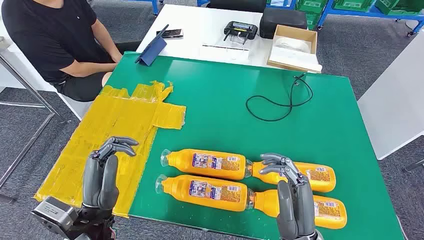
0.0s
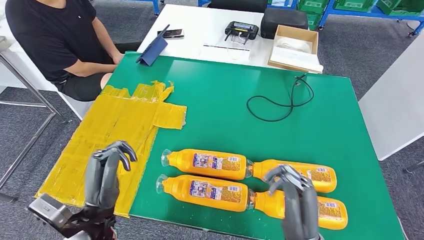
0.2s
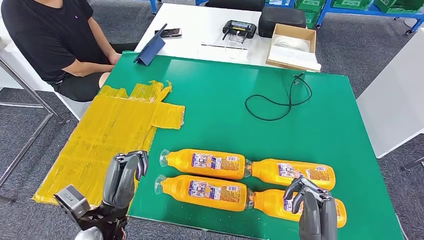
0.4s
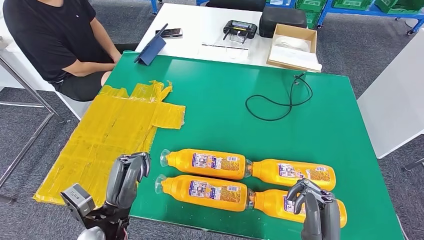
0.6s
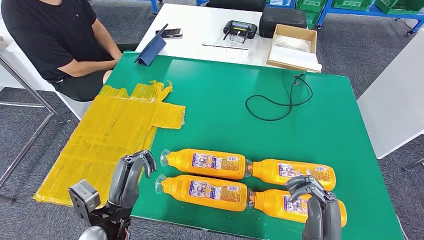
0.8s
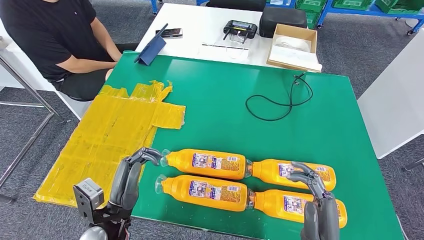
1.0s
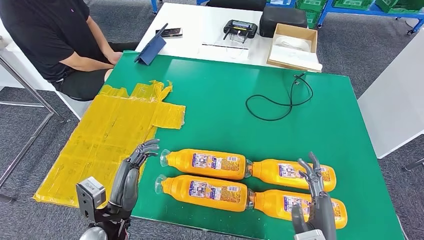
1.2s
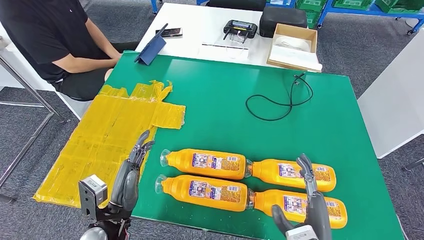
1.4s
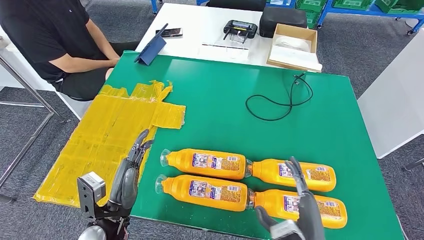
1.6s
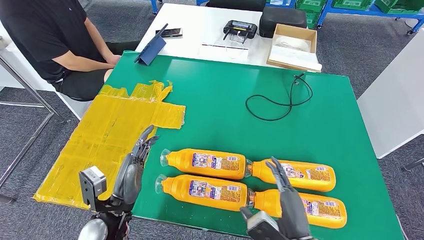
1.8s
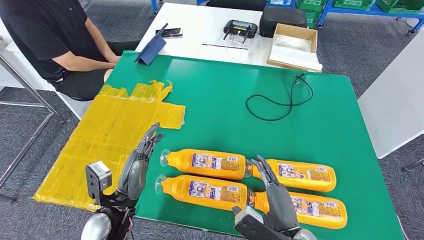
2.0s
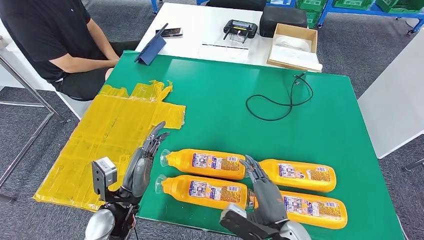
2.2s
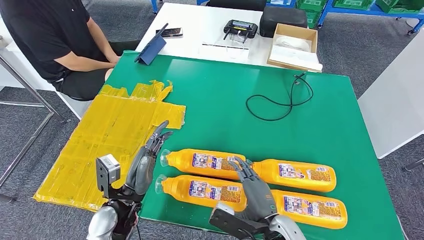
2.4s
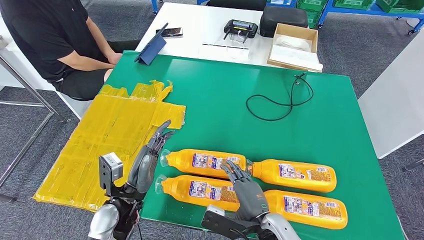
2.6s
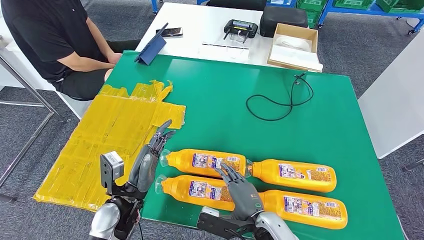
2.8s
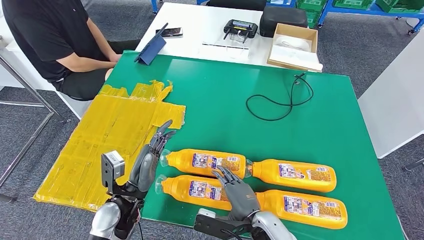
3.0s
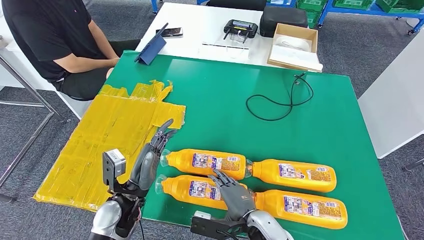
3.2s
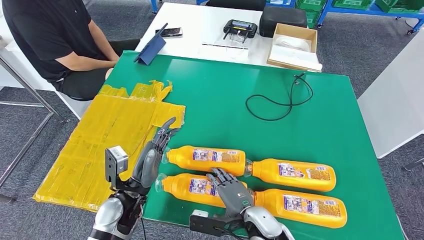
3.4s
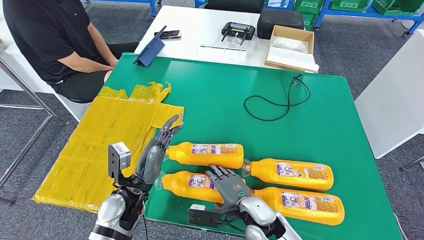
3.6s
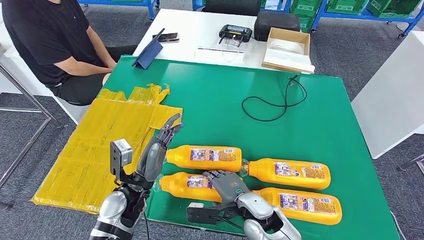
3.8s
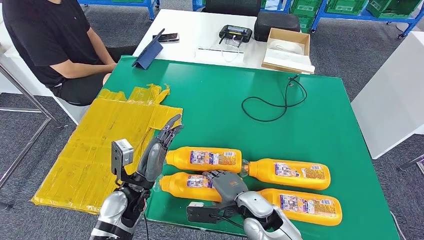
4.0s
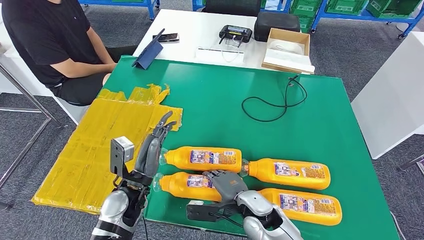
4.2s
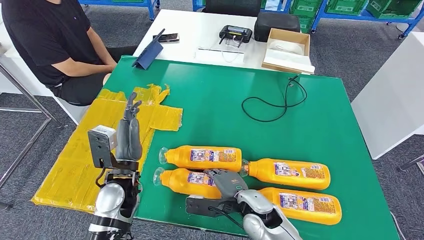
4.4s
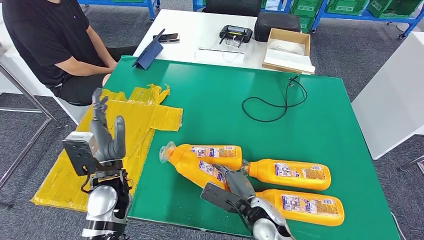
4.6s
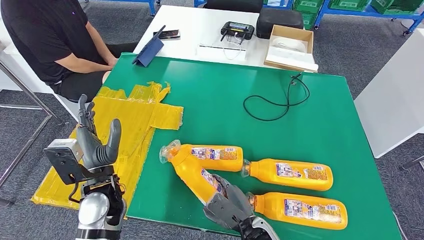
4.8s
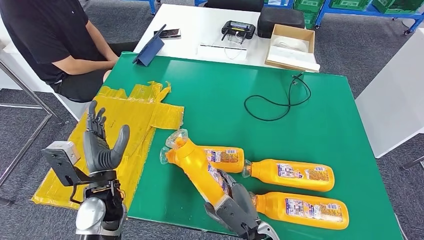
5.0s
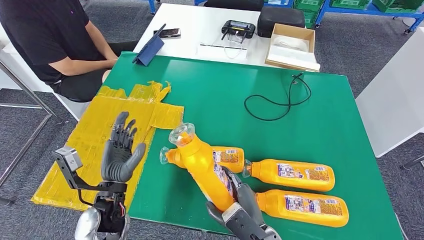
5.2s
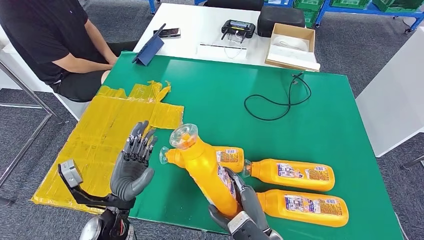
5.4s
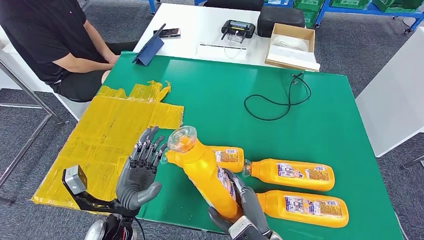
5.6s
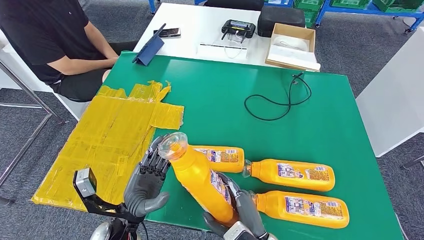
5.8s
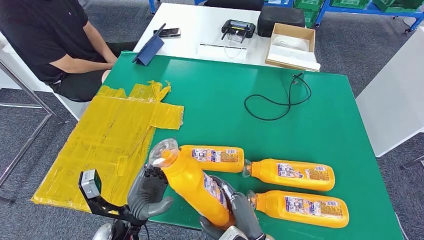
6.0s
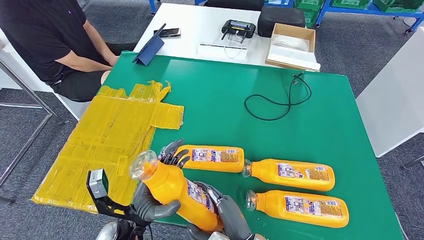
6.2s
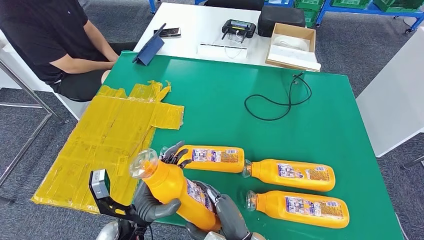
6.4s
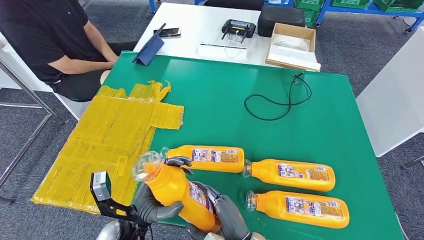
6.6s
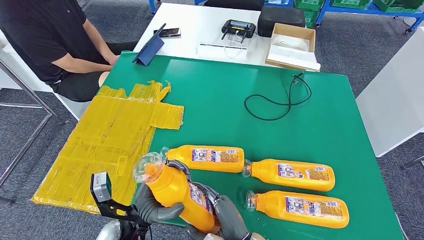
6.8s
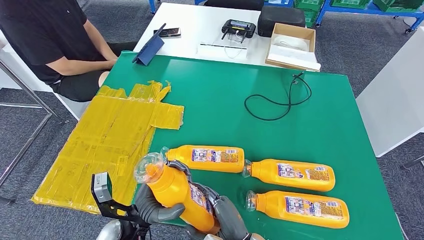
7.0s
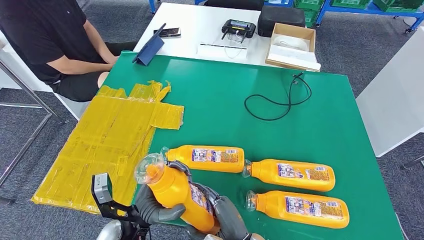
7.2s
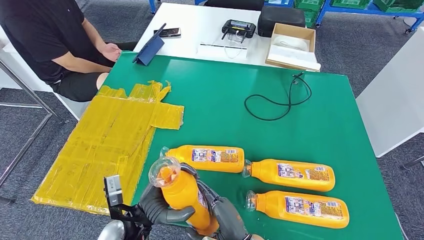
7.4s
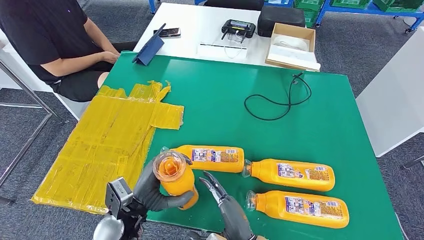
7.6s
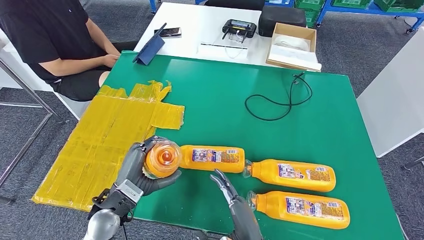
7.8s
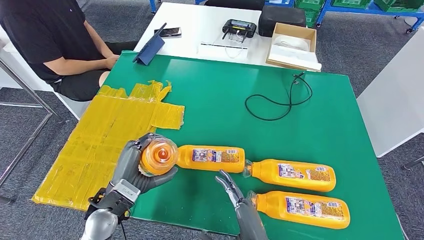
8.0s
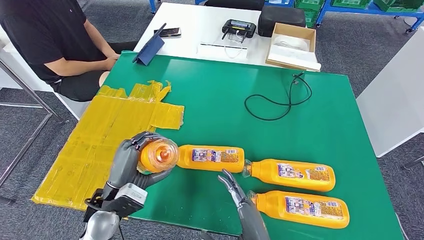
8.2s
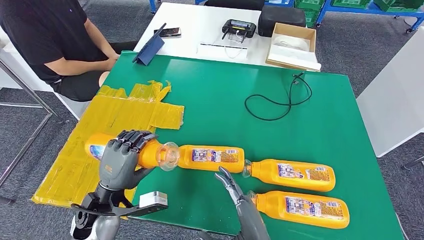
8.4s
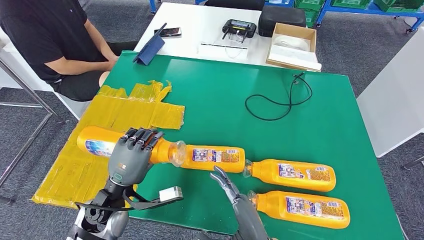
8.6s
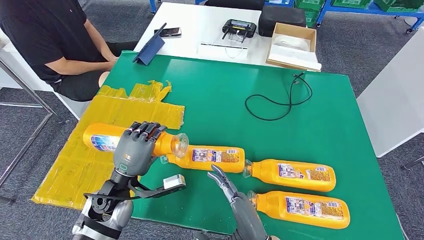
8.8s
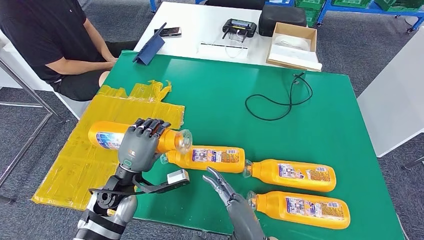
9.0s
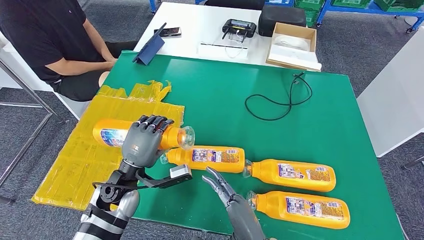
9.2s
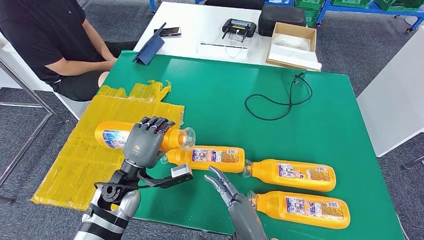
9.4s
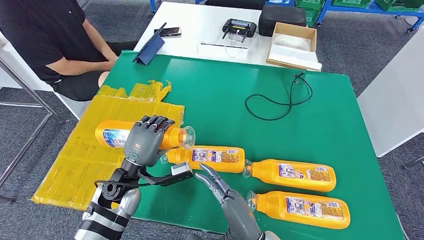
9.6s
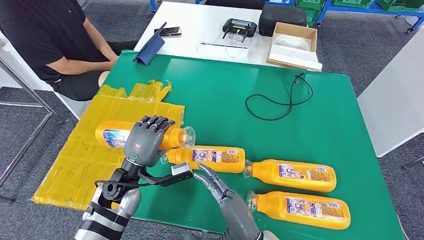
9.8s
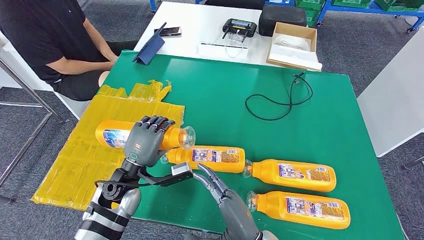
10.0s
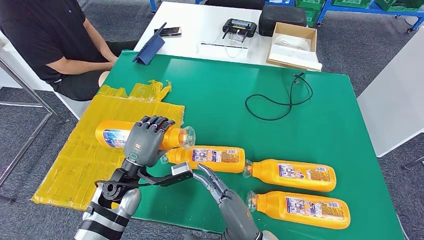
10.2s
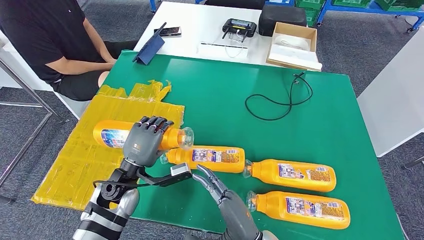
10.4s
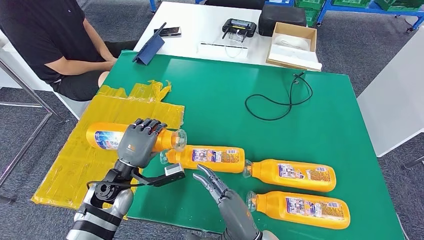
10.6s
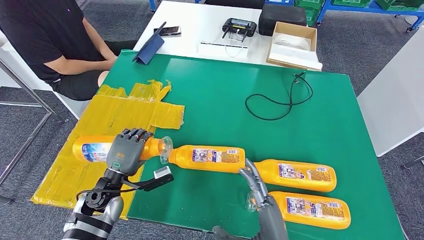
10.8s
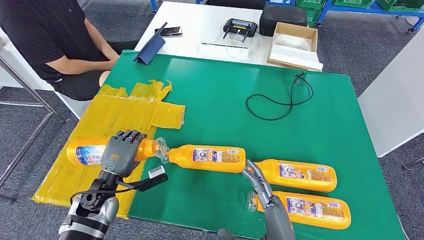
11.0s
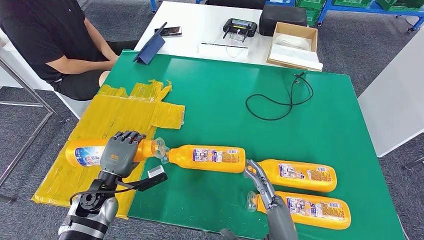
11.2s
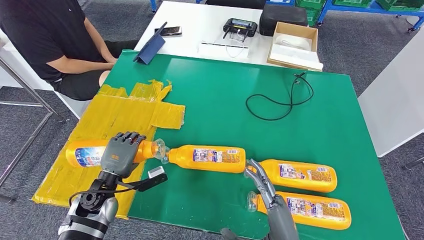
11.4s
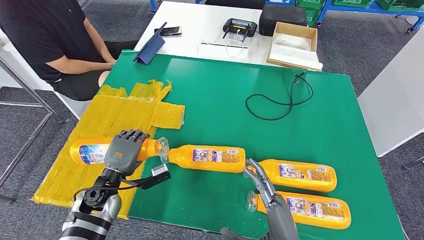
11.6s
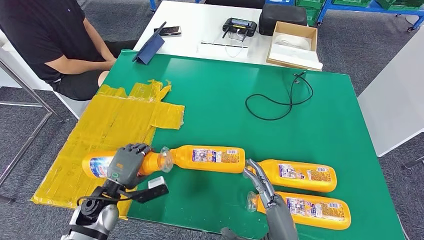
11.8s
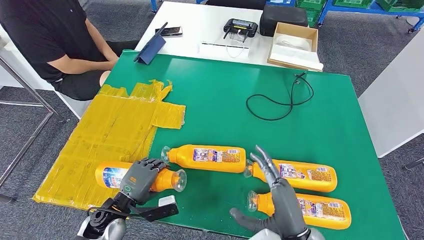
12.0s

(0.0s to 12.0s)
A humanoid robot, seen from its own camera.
Step, 0.0s - 6.0s: Take the fast-moving consumer goods bottle from the table.
1.6s - 3.0s: The left hand ends up about 5 cm from where it was, while the right hand goes about 10 cm to the left, forward and downward.
7.6s - 9.0s: The left hand is displaced forward by some 5 cm.
9.0s - 10.4s: There are only small adjustments of the hands.
10.4s - 12.0s: The left hand moves downward and backward, some 10 cm. Meanwhile the right hand moves to the right, roughly 10 cm.

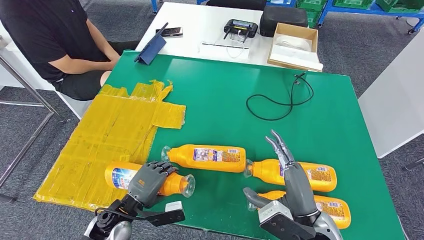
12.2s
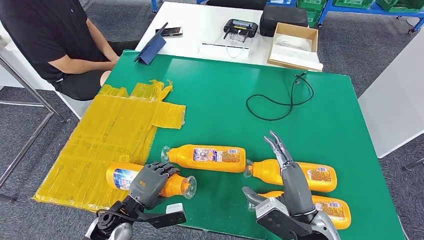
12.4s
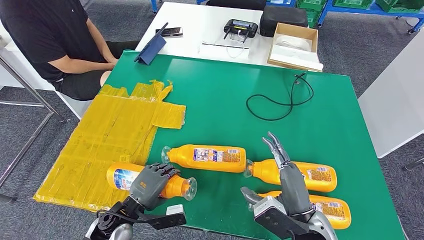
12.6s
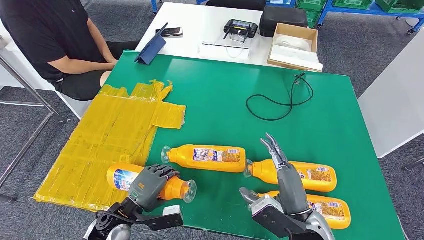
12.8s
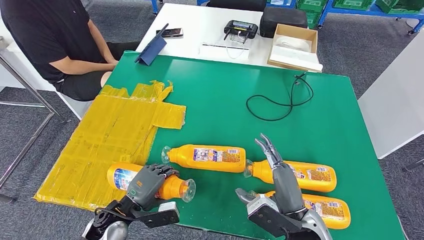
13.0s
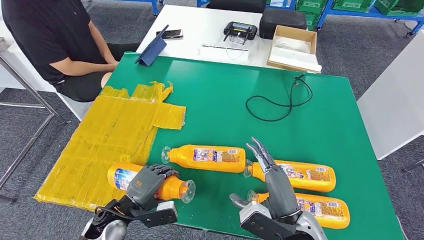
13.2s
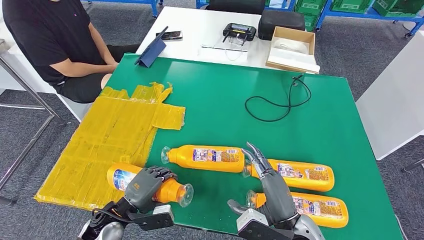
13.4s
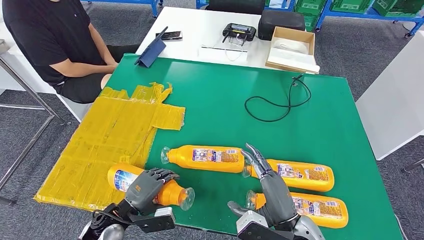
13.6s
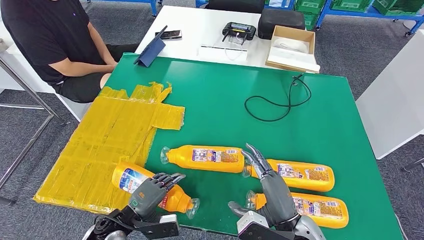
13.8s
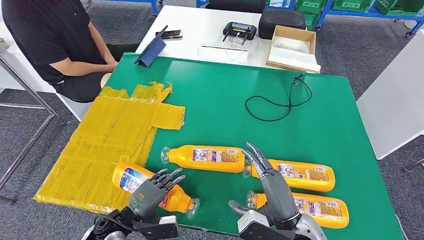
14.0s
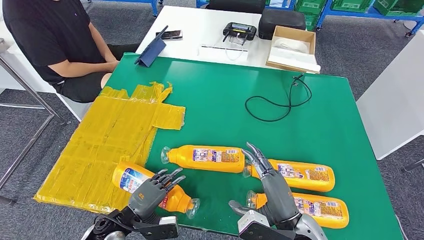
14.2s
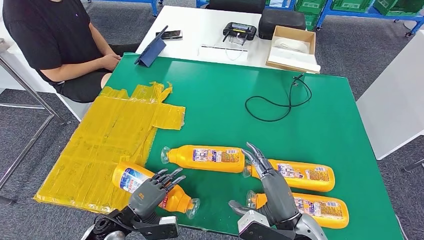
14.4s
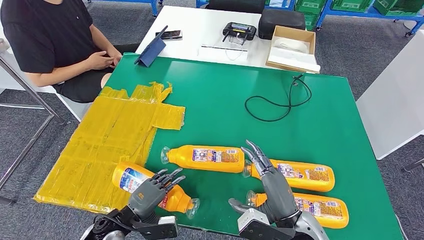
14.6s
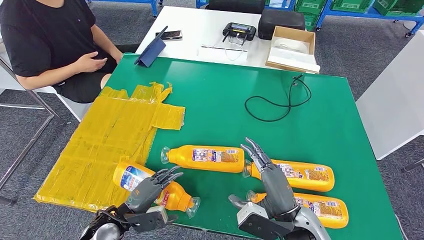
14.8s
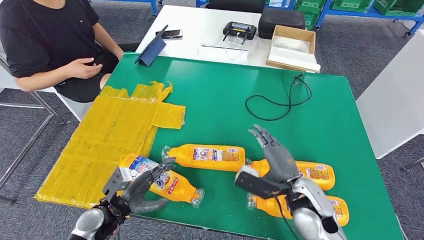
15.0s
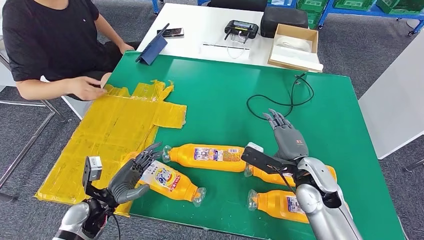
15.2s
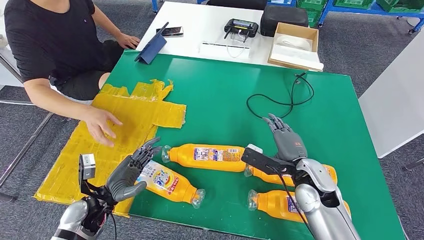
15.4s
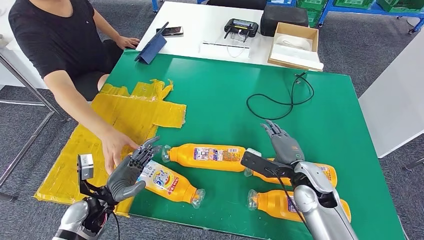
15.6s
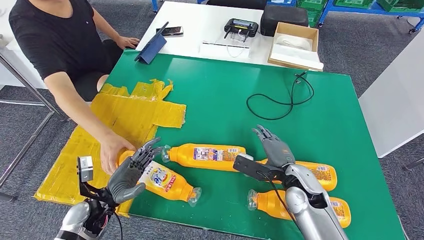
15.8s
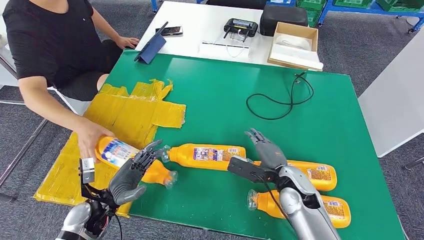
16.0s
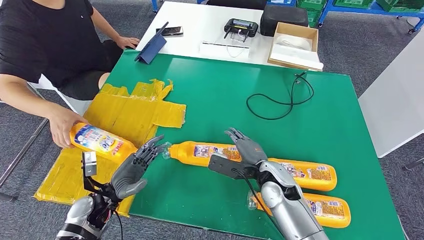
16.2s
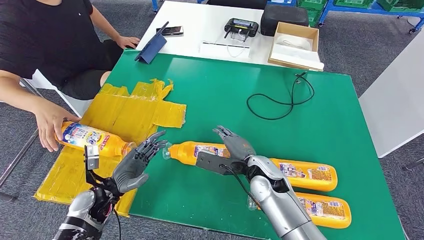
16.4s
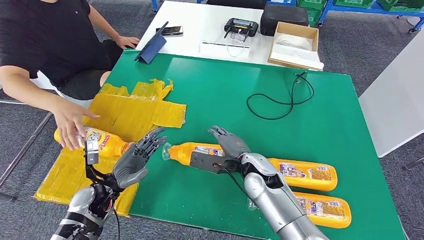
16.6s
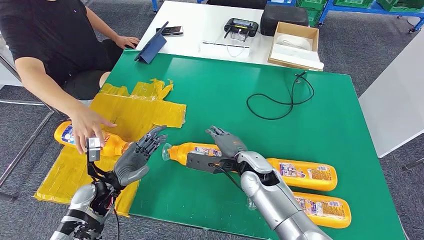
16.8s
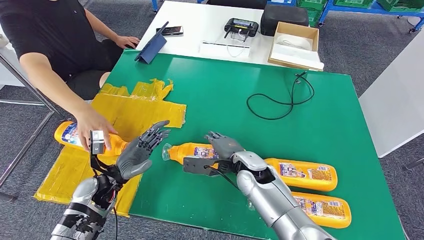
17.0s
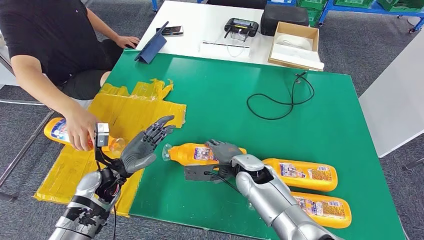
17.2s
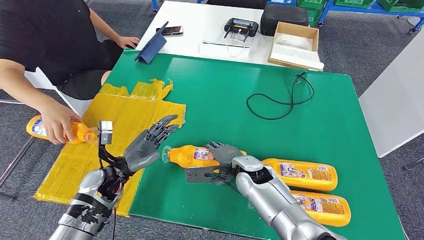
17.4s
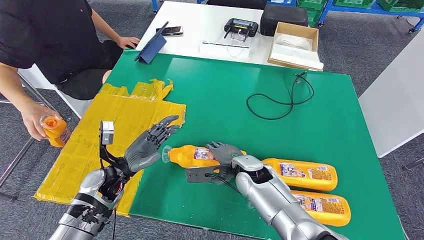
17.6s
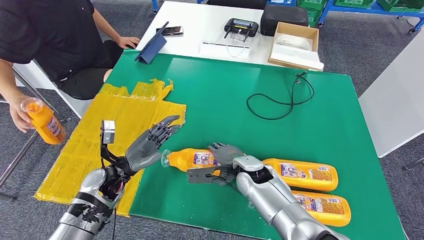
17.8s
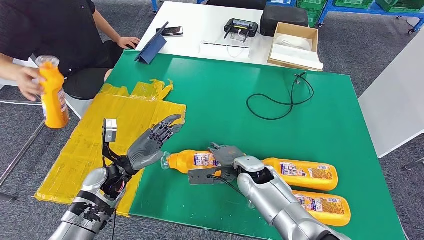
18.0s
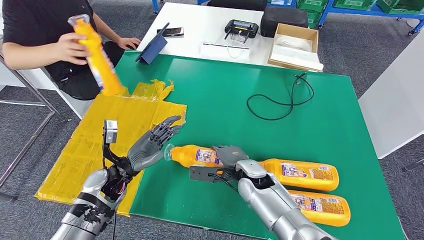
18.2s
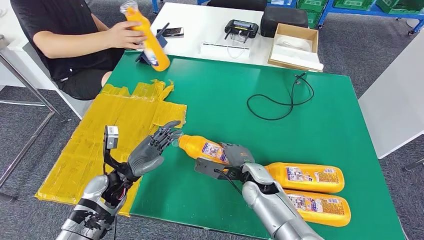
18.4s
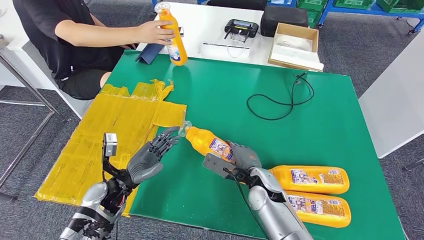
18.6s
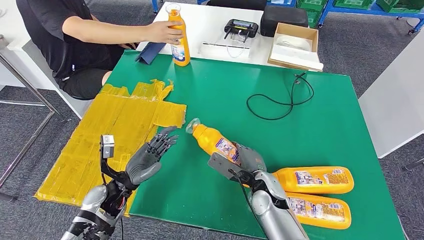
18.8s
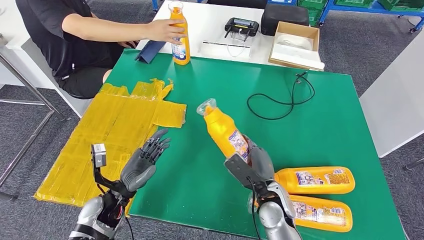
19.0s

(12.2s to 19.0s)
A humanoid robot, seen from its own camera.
Step, 12.2s - 16.2s: Flip the fast-moving consumer goods bottle to the front side.
16.2s - 17.6s: The right hand shifts some 5 cm to the left. Meanwhile the left hand goes about 5 cm forward.
